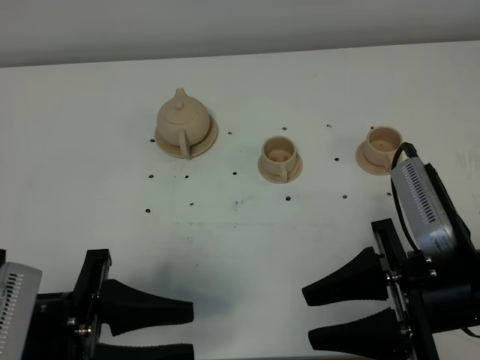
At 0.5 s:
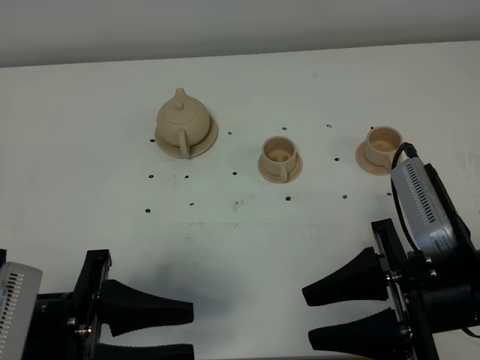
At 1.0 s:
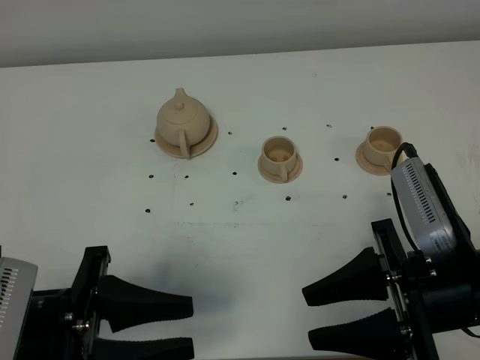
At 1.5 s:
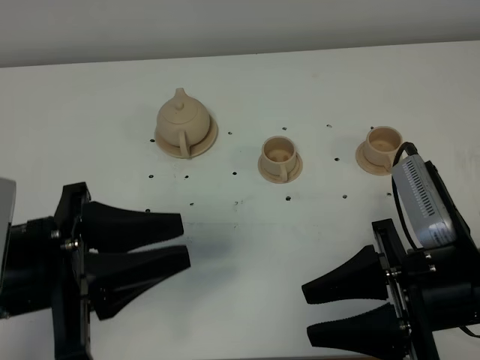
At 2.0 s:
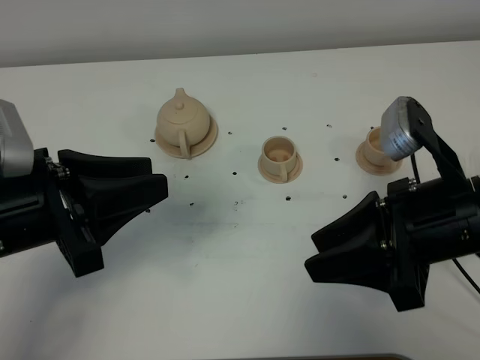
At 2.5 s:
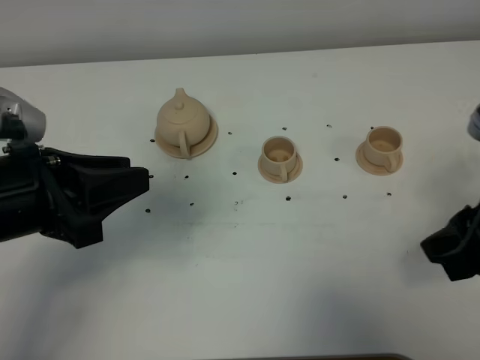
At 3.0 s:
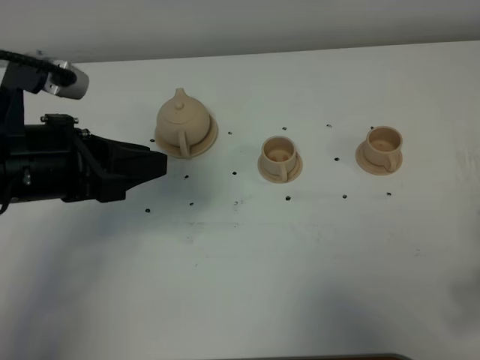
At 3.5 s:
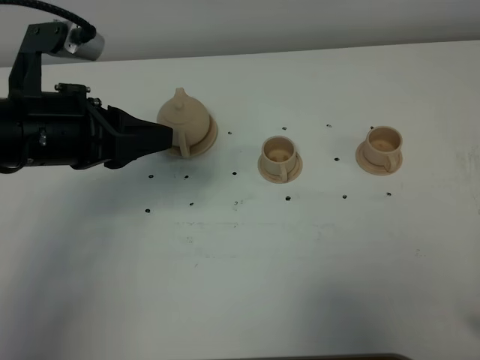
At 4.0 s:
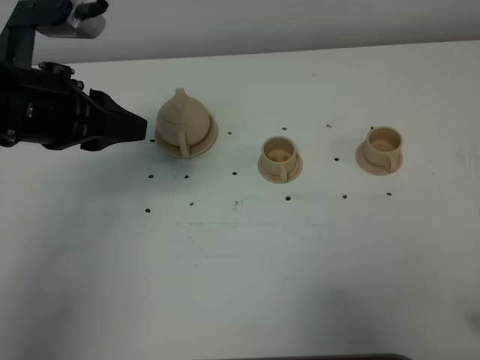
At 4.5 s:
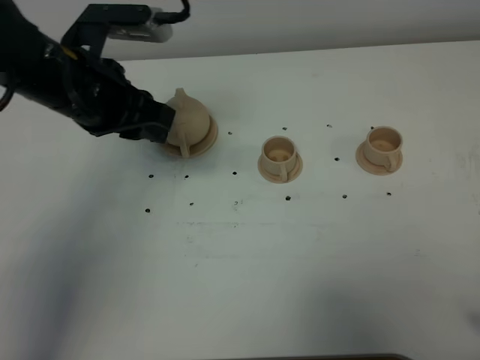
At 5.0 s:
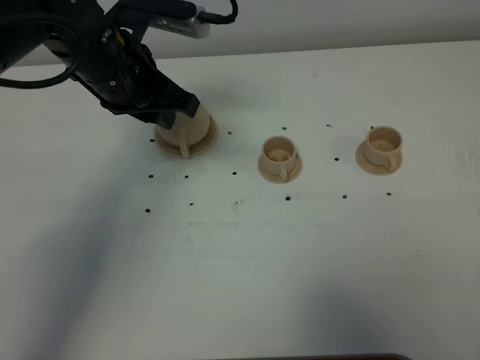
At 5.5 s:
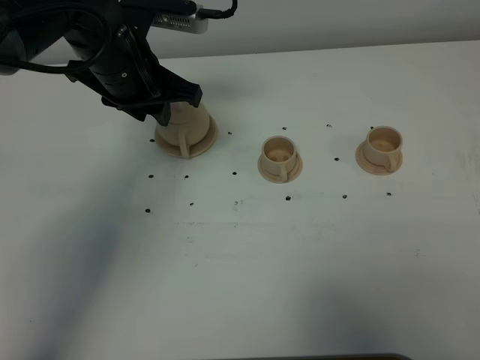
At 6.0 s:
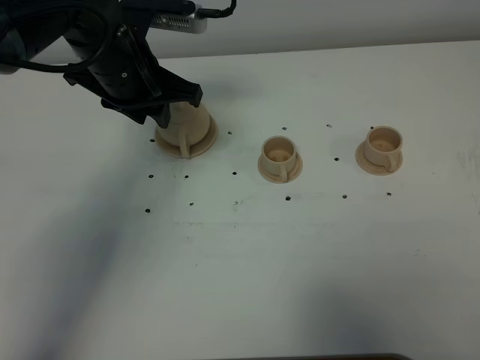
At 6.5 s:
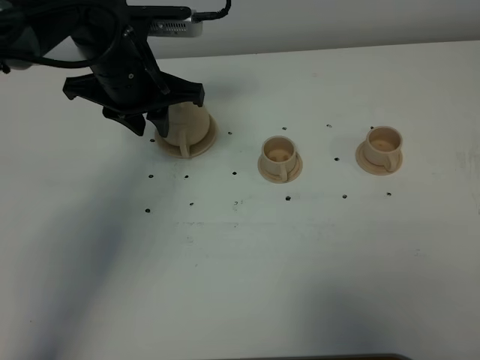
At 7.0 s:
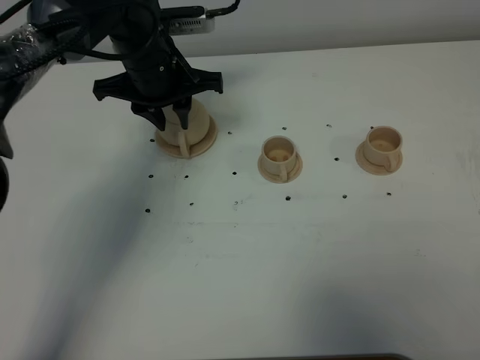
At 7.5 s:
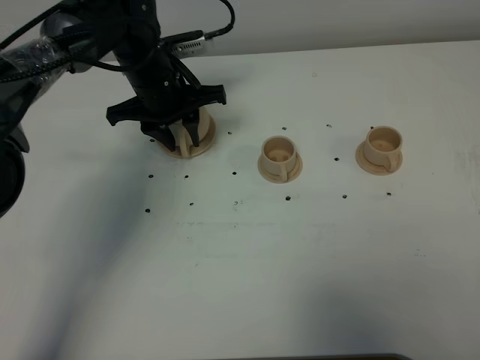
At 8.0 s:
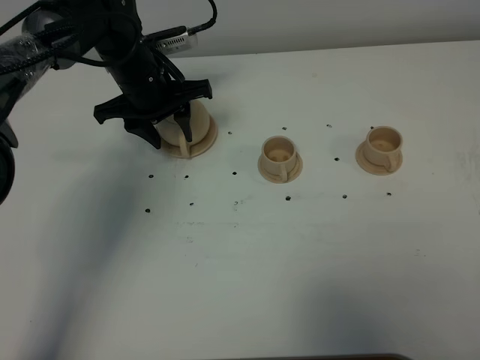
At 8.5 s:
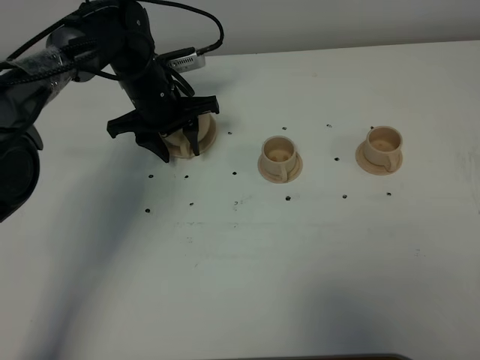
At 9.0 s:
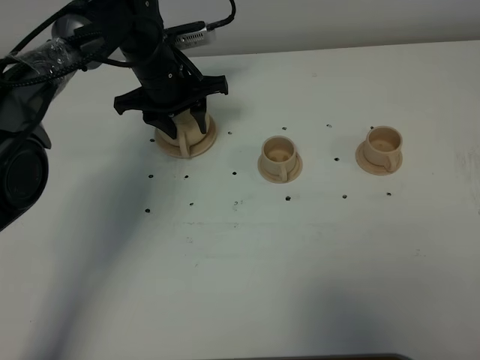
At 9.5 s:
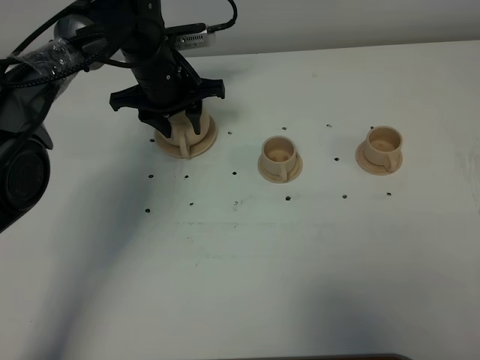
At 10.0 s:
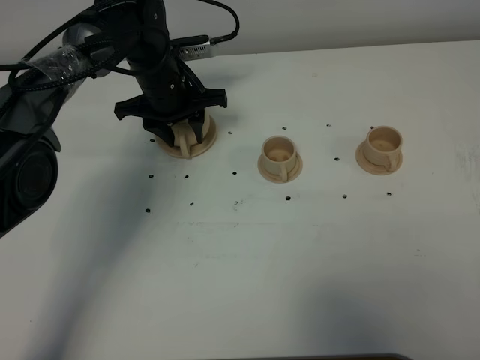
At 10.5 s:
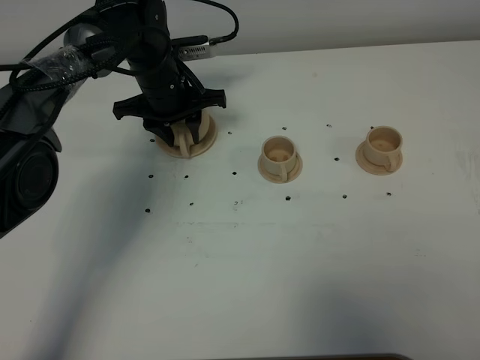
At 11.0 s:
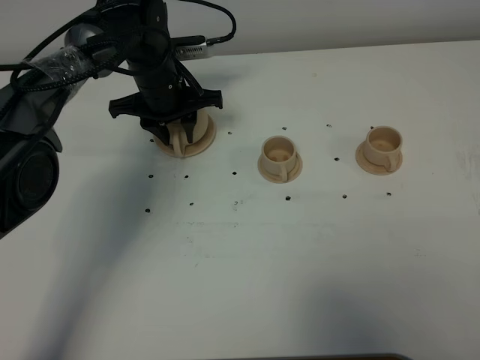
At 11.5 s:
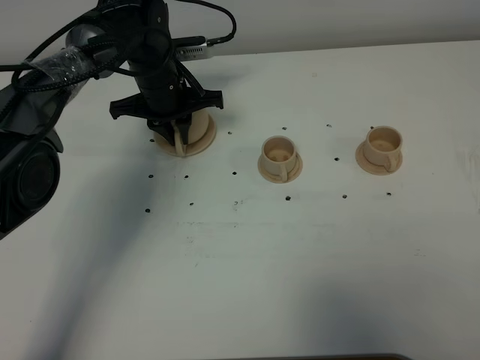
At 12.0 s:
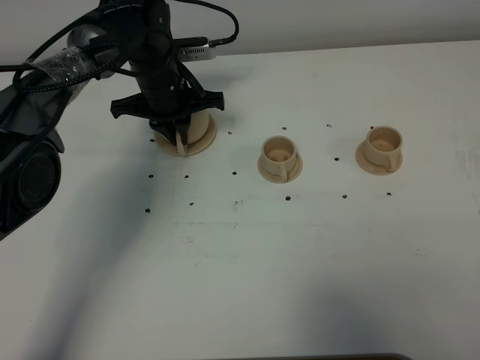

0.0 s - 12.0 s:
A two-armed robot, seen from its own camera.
Task of the whole recording: grasp the brown teapot and pour the tea into the two brown teacups one by one, put the brown teapot back in its original place.
0.0 s - 2.0 s: The left gripper is displaced upward and forward by approximately 10 cm, while the right gripper ends up some 5 cm from where it was.
2.0 s - 4.0 s: The left gripper moves forward, roughly 10 cm. Meanwhile the right gripper travels backward and to the right by some 15 cm.
4.0 s - 6.0 s: The right gripper travels backward by about 5 cm, while the left gripper moves forward and to the right, about 15 cm.
6.0 s - 8.0 s: The left gripper shifts roughly 10 cm downward and forward, and opens its fingers.
8.0 s - 10.0 s: The grippers make only small movements.
10.0 s - 12.0 s: The left gripper closes its fingers.

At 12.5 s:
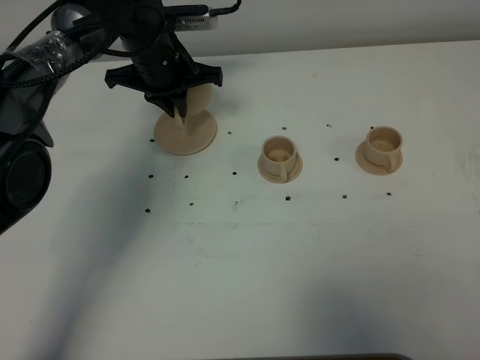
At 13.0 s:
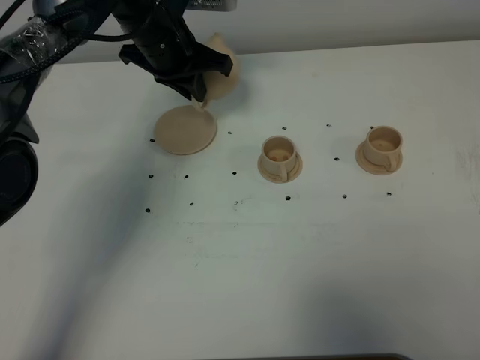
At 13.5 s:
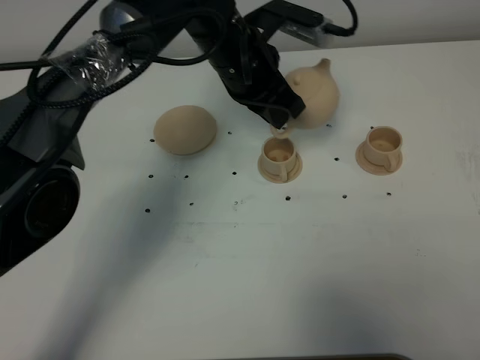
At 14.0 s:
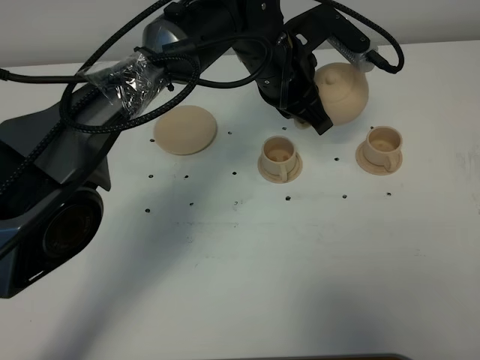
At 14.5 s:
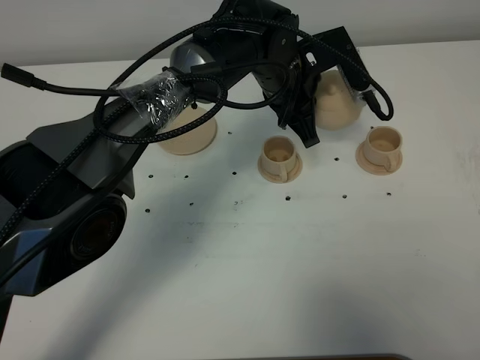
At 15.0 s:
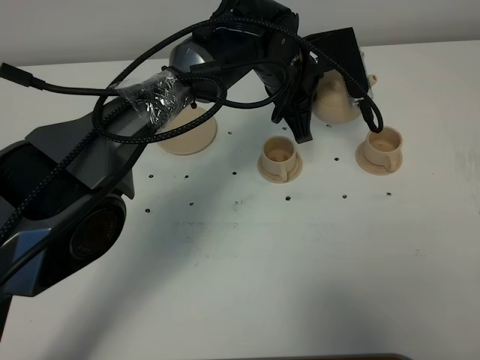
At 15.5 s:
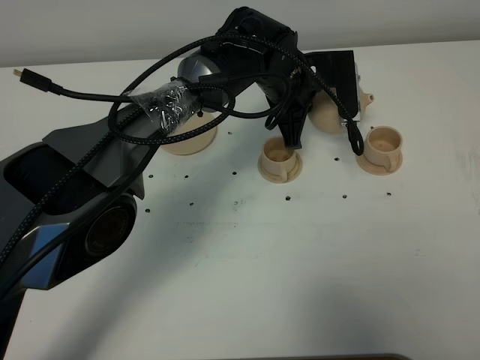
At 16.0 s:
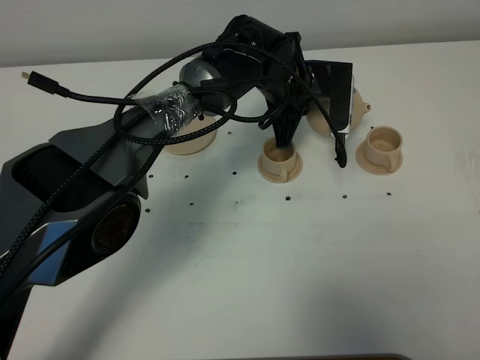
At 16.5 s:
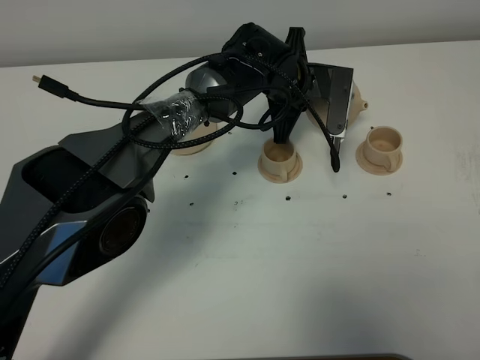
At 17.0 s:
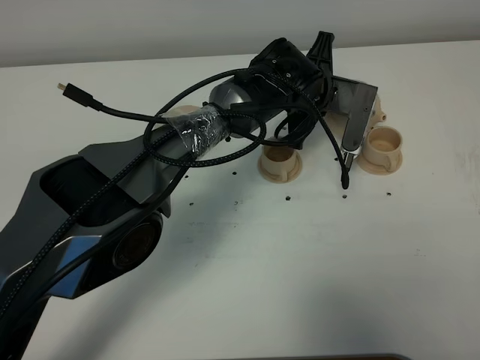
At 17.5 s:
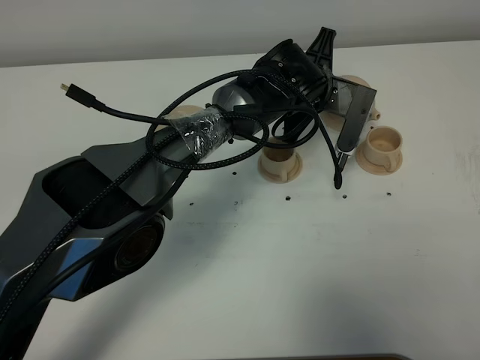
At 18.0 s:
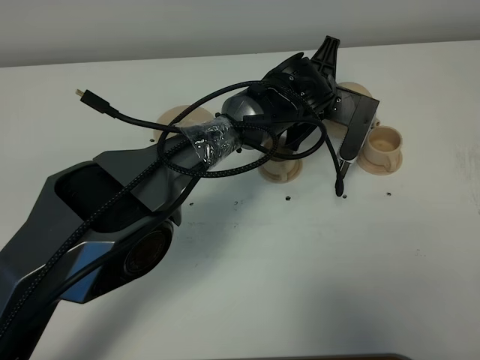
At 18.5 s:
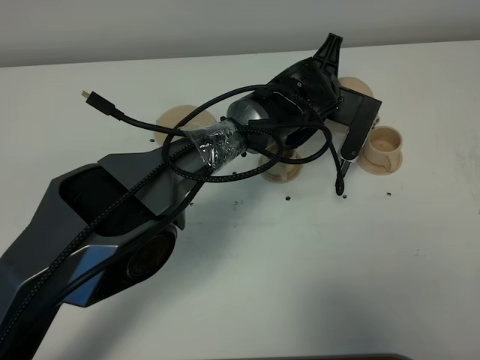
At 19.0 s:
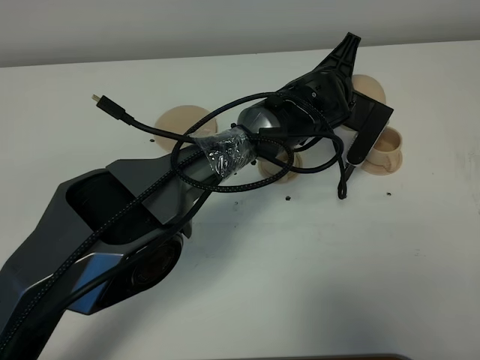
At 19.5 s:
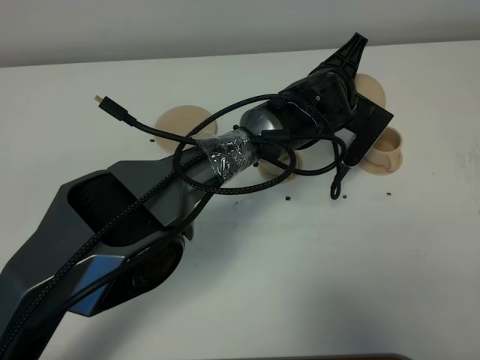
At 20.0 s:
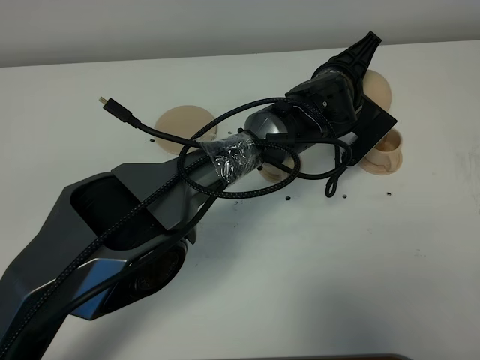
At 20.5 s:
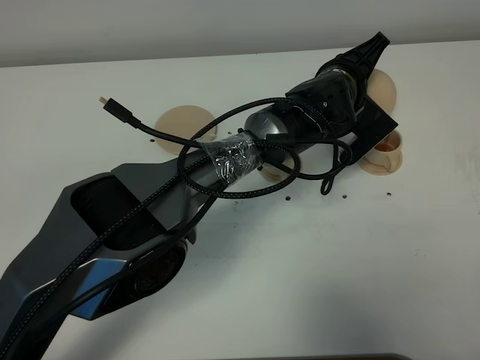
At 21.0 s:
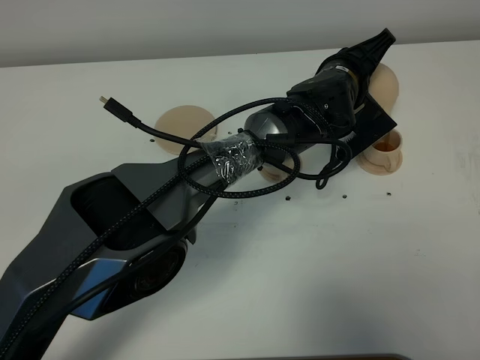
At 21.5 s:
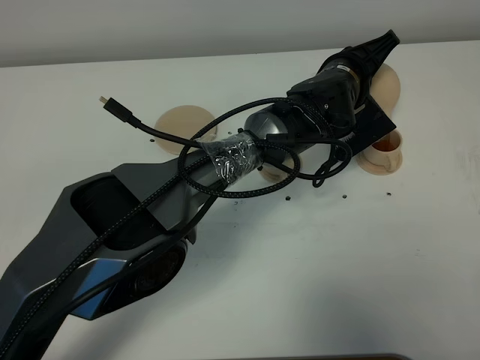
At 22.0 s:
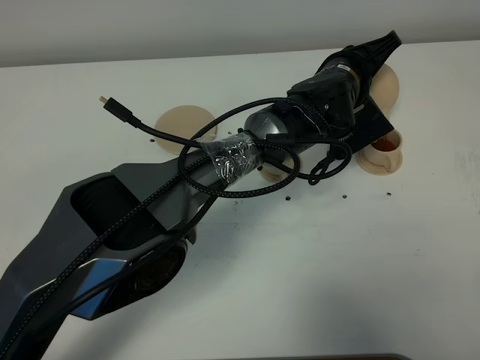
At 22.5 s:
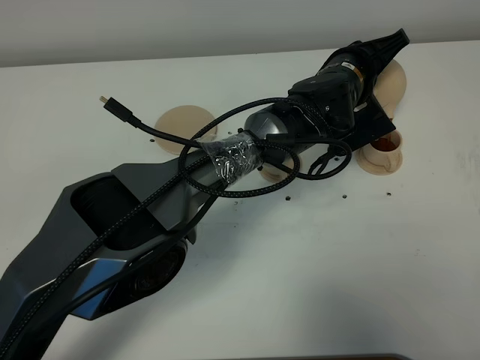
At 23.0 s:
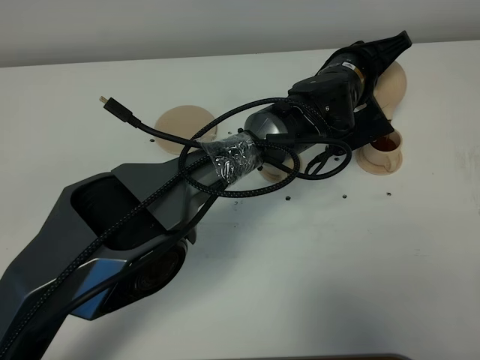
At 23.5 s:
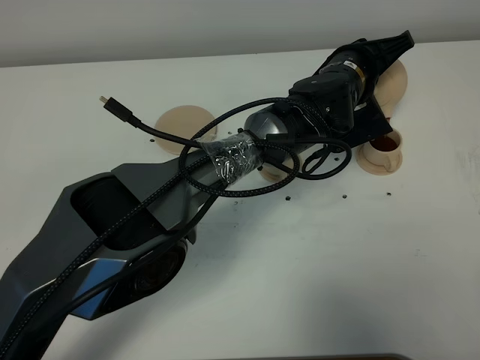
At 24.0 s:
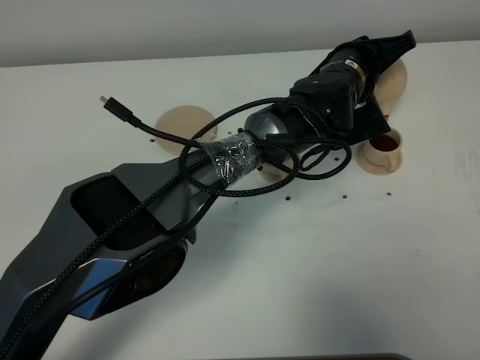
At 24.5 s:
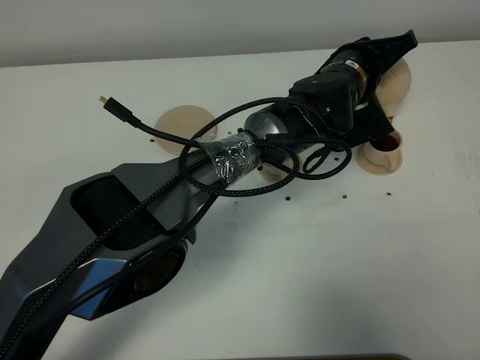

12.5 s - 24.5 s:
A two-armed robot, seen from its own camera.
Task of the whole recording: grasp the brown teapot and pour the tea into the two brown teacups one by one, put the brown teapot back in its original place.
12.5 s - 14.5 s: The left gripper shifts roughly 15 cm to the right.
14.5 s - 16.5 s: The left gripper changes place by approximately 5 cm.
20.5 s - 22.5 s: There are only small adjustments of the grippers.
22.5 s - 24.5 s: The grippers move only a little.

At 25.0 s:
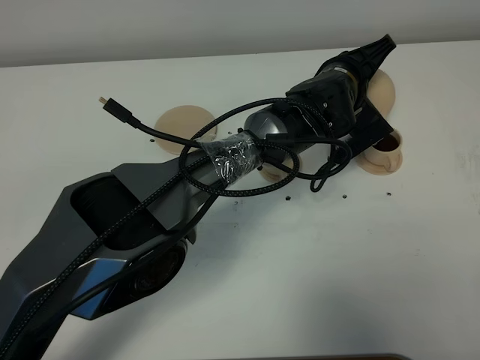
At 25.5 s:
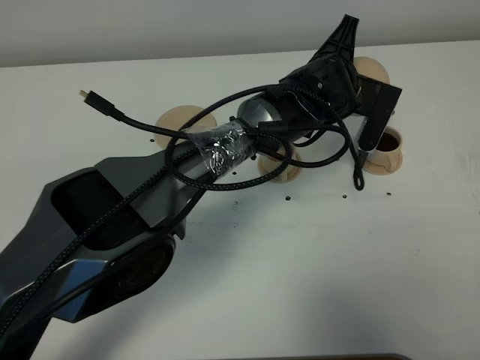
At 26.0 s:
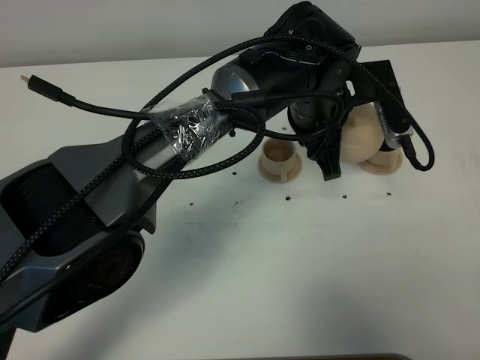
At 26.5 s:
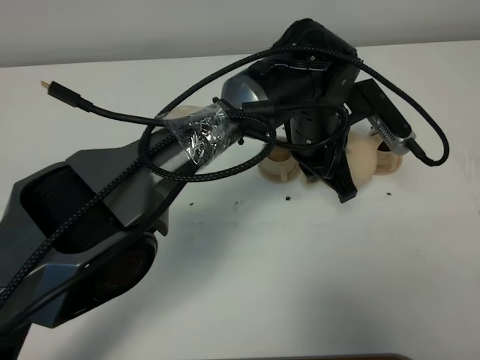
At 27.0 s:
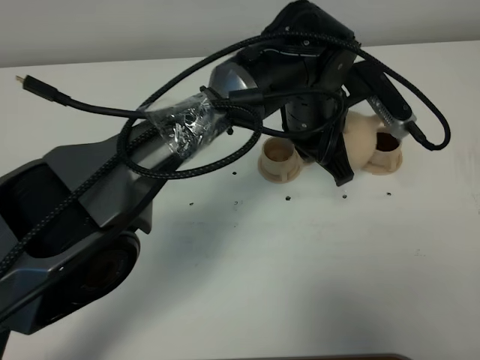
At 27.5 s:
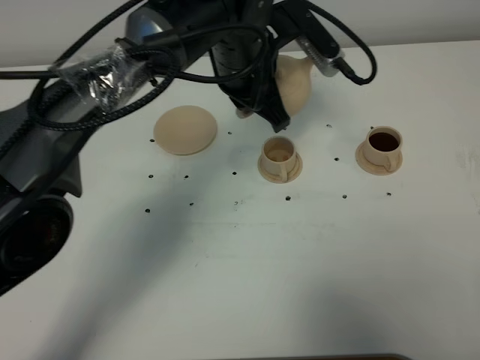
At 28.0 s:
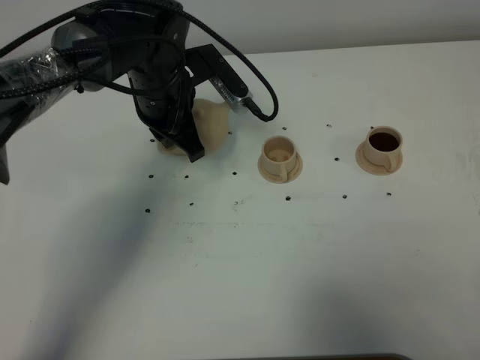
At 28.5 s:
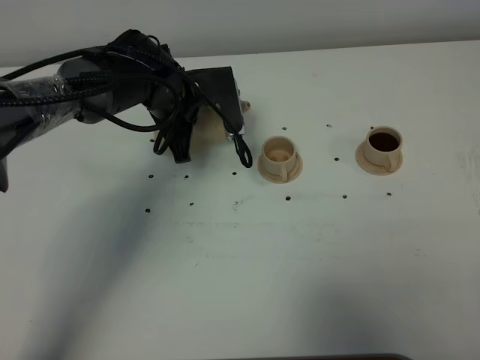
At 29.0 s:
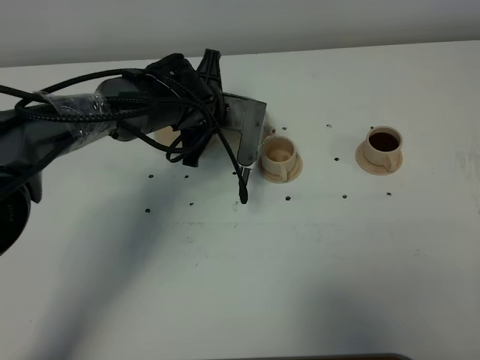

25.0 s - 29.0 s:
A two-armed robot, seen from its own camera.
Task of the whole recording: grasp the brown teapot and pour the tea into the two brown teacups one by one, put the brown teapot back in its original place.
25.0 s - 27.0 s: The left gripper heads backward and upward, covering some 10 cm.
27.0 s - 29.0 s: The left gripper moves to the left, downward and forward, some 15 cm.
